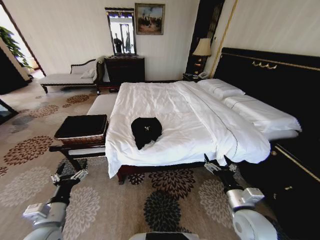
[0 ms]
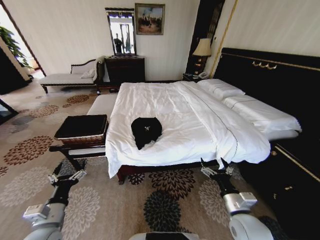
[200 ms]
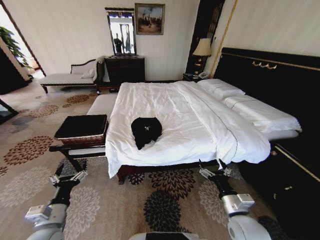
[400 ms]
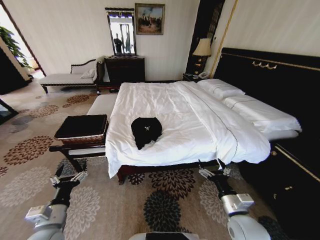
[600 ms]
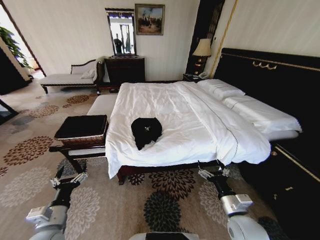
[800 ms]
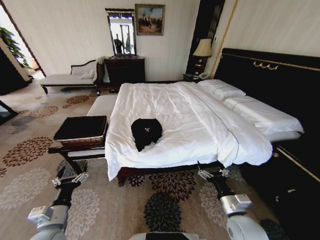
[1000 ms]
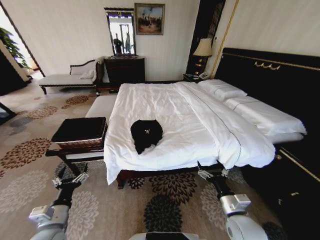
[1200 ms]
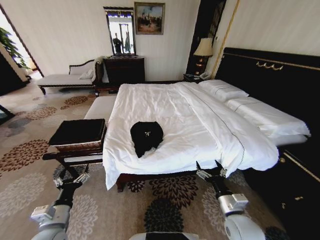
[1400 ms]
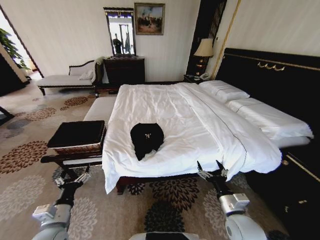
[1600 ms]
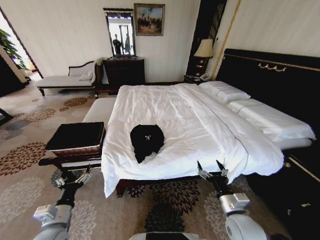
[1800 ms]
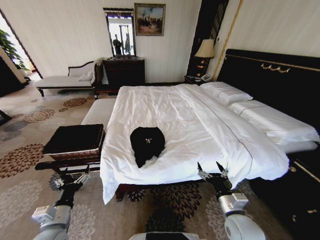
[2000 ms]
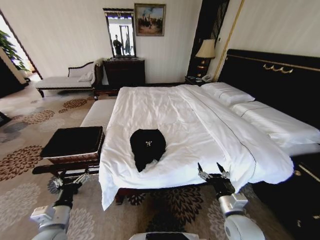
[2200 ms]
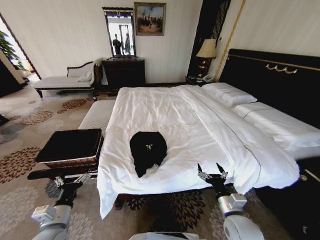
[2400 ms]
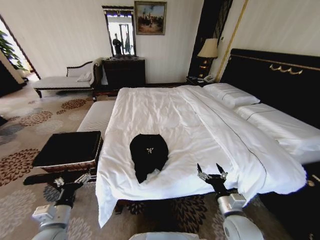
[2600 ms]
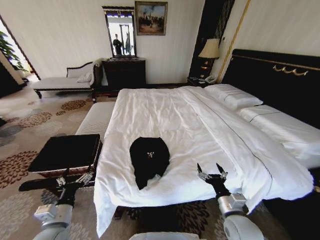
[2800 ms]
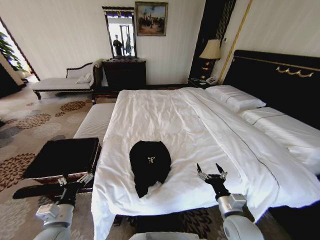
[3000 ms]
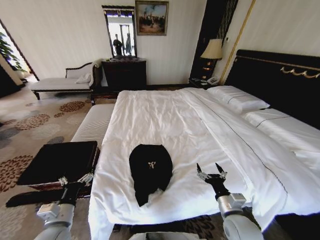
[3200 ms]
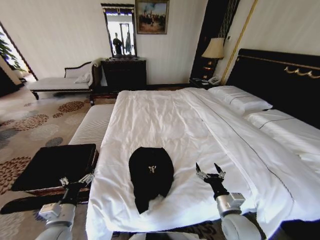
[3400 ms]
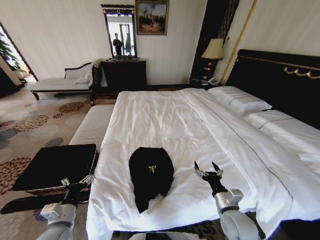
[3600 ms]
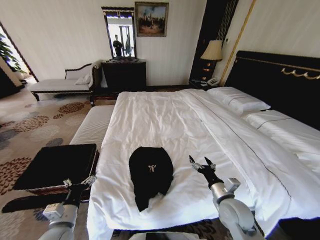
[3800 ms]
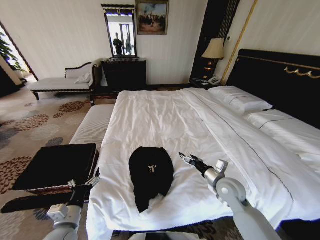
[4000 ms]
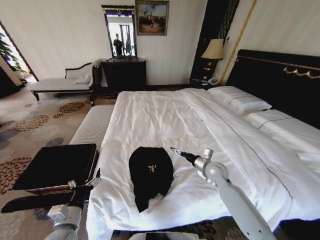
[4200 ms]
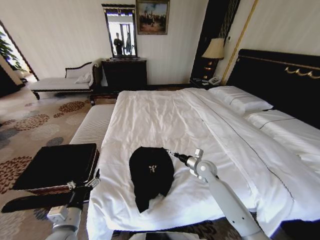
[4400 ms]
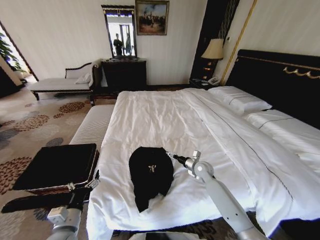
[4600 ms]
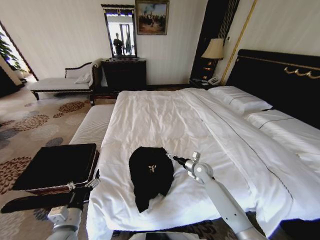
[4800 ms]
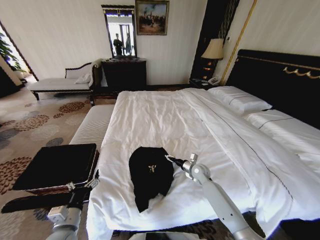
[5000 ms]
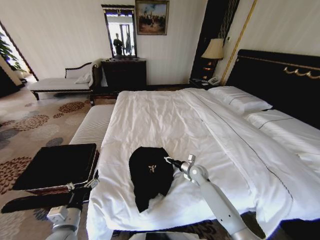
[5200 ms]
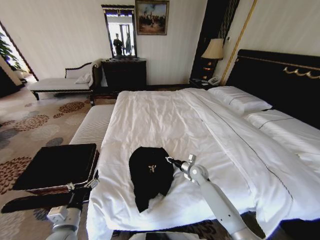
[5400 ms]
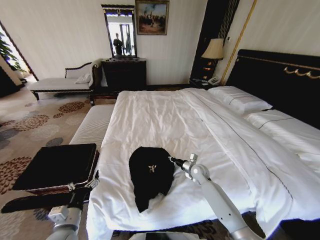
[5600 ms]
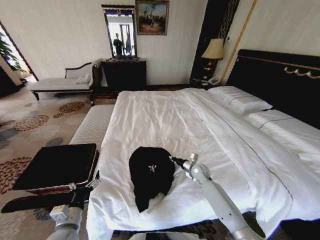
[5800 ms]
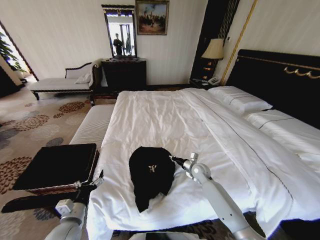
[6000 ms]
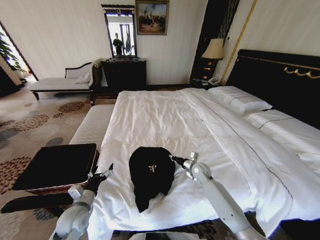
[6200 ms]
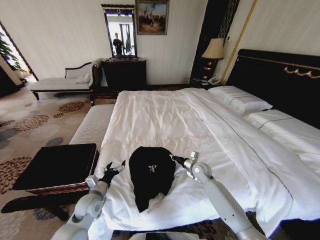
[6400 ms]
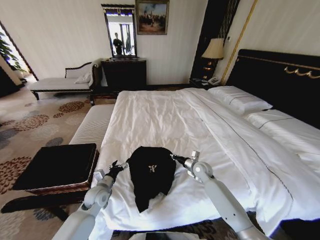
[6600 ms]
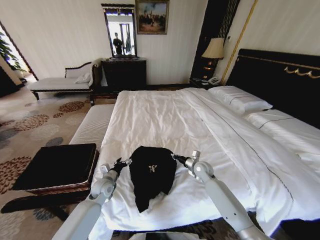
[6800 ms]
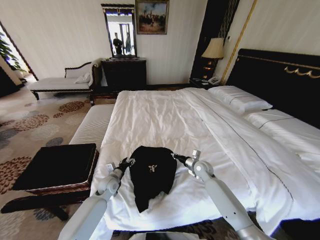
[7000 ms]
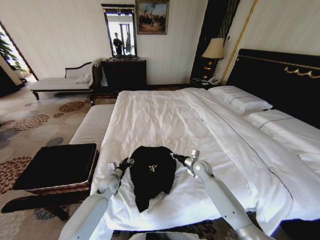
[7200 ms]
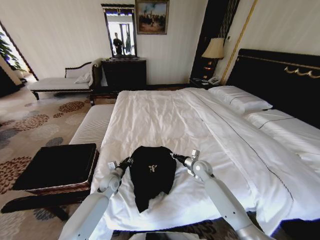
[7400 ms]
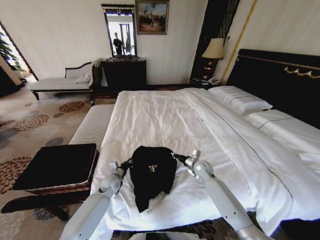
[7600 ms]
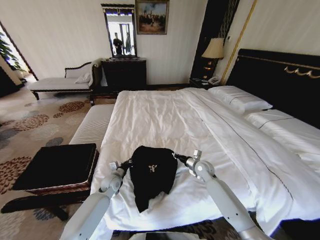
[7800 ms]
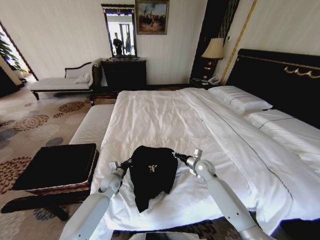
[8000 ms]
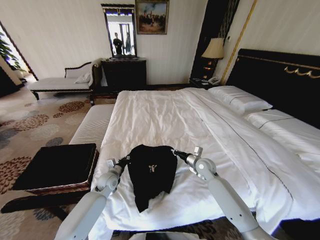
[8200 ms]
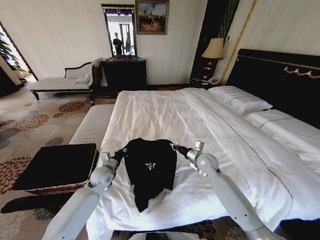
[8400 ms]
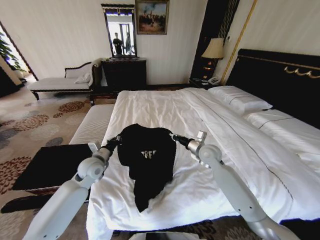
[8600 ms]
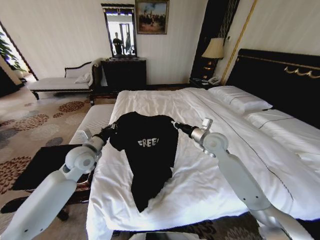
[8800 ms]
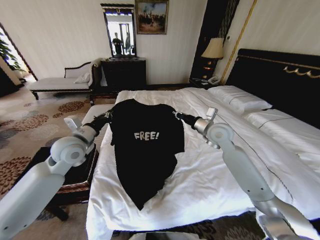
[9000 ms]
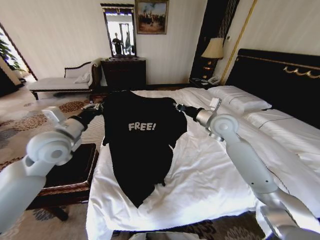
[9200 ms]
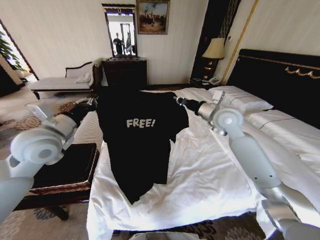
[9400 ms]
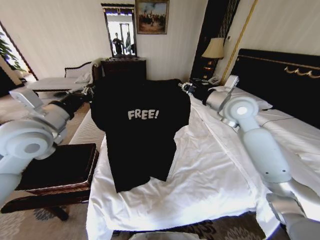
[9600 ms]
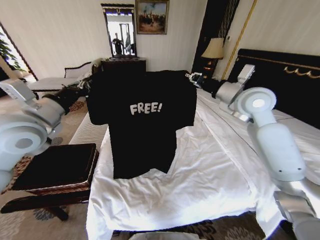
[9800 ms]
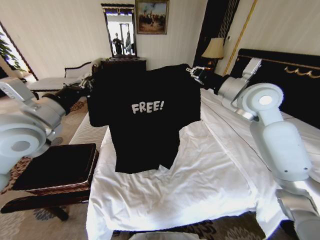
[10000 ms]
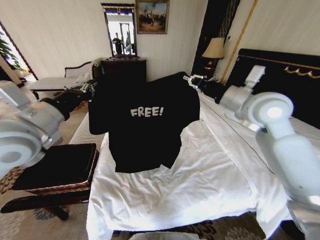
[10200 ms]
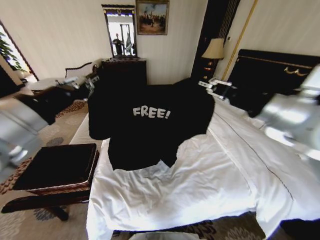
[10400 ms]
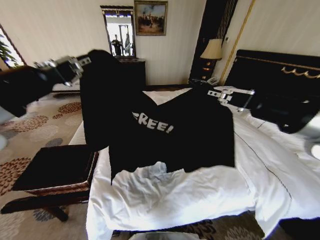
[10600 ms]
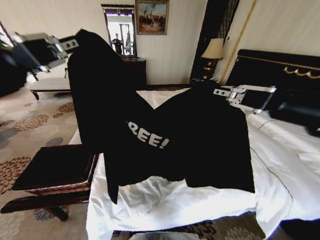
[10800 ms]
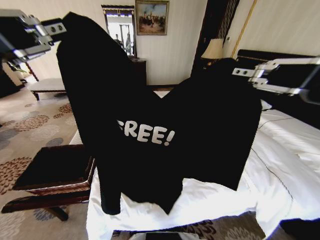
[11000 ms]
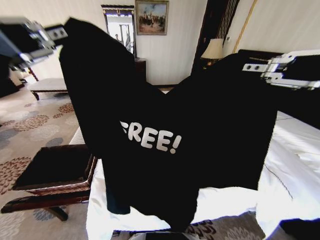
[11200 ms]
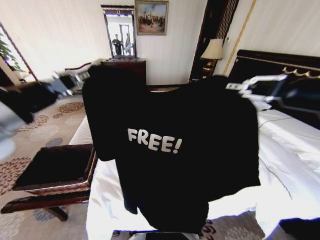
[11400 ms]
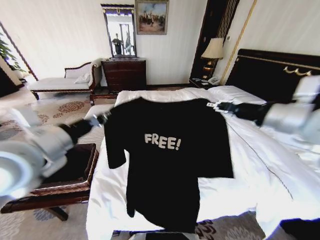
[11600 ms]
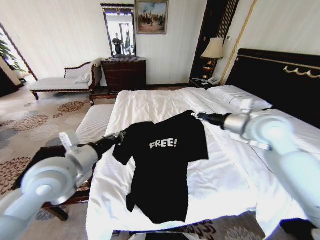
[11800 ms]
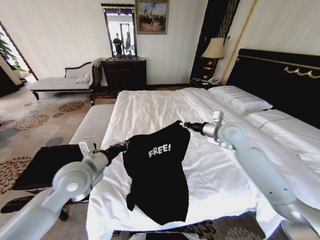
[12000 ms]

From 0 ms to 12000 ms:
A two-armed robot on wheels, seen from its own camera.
Task of the whole recording: Fold the clothes on the bed and place them into the basket.
From 3000 ms to 4400 ms: The right gripper is displaced forward by about 25 cm.
From 4400 ms to 6000 ms: The right gripper is displaced downward by some 5 cm, and closes up.
From 6000 ms to 7600 ms: The left gripper heads forward, covering some 20 cm, and closes its fingers.
From 7600 ms to 9000 ms: The grippers both shift upward by about 25 cm.
From 9000 ms to 10400 ms: The left gripper heads upward and backward, covering roughly 20 cm. The right gripper shifts some 25 cm backward and upward.
From 10400 ms to 12000 ms: The right gripper shifts some 25 cm downward and forward. Meanwhile the left gripper moves downward, some 20 cm.

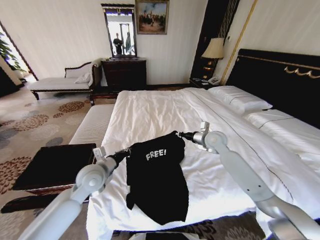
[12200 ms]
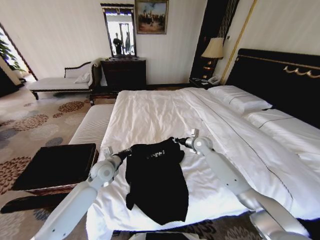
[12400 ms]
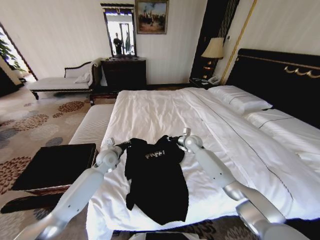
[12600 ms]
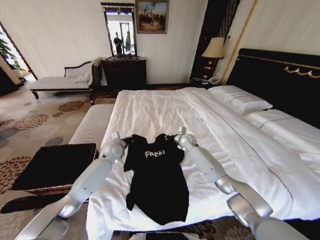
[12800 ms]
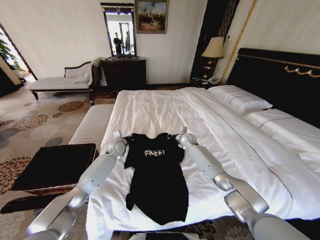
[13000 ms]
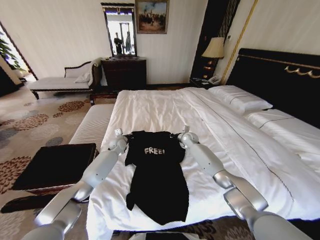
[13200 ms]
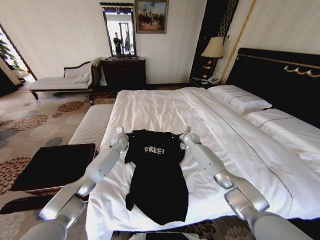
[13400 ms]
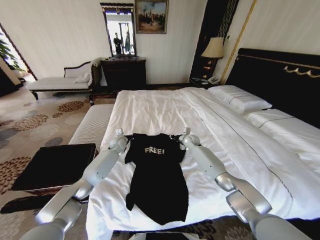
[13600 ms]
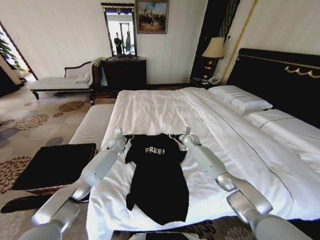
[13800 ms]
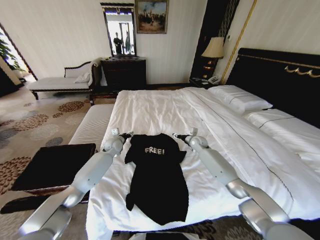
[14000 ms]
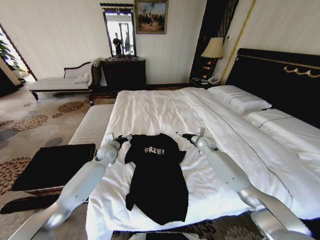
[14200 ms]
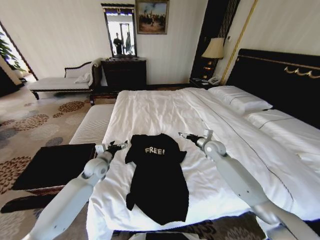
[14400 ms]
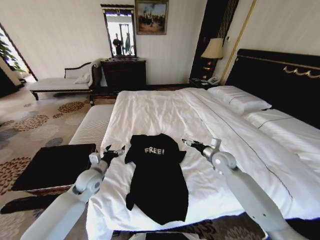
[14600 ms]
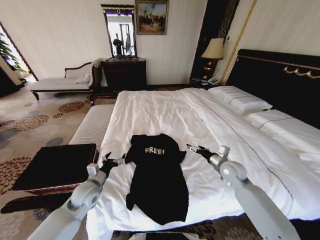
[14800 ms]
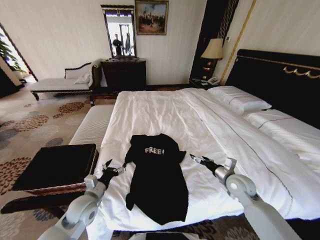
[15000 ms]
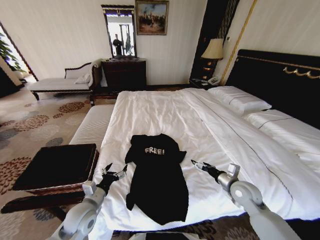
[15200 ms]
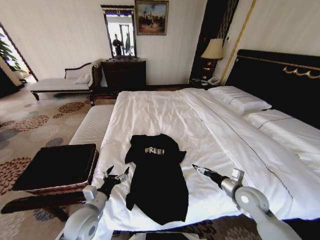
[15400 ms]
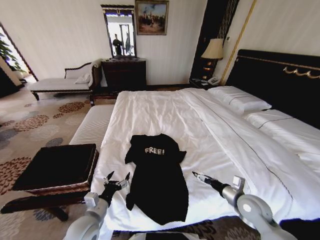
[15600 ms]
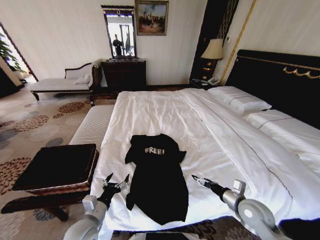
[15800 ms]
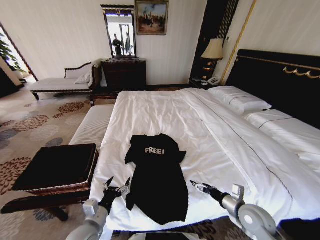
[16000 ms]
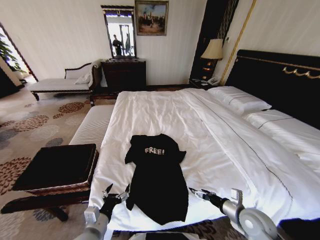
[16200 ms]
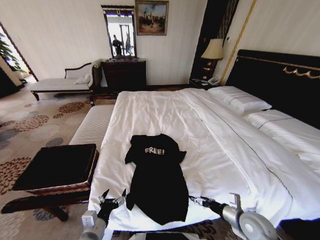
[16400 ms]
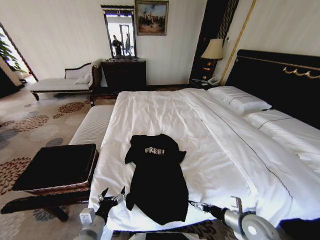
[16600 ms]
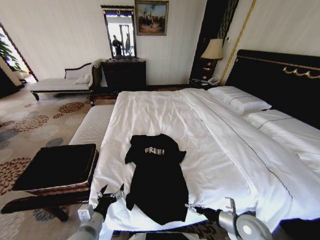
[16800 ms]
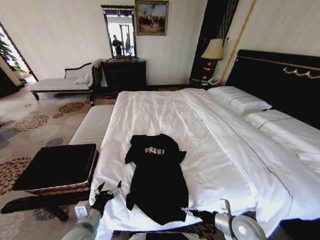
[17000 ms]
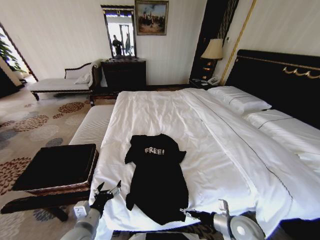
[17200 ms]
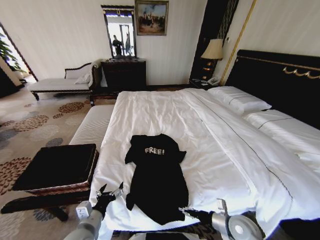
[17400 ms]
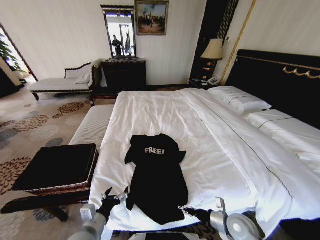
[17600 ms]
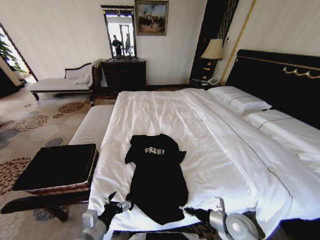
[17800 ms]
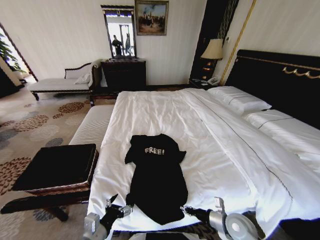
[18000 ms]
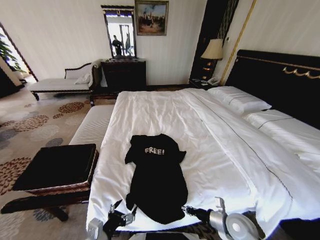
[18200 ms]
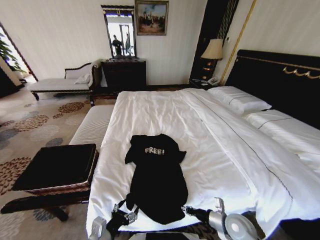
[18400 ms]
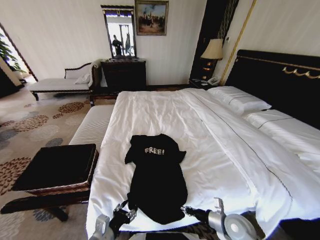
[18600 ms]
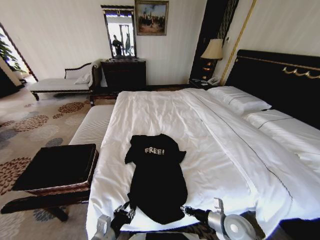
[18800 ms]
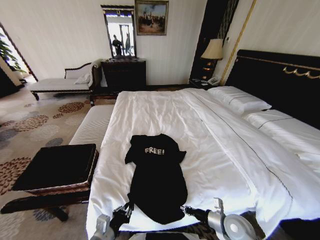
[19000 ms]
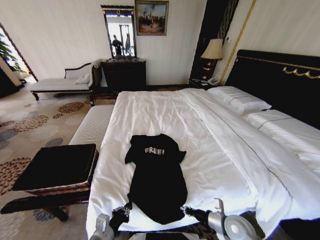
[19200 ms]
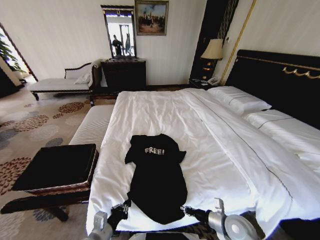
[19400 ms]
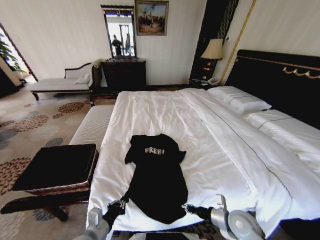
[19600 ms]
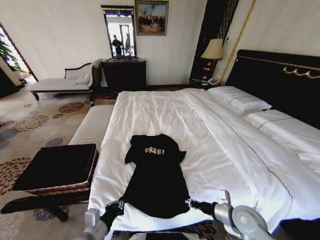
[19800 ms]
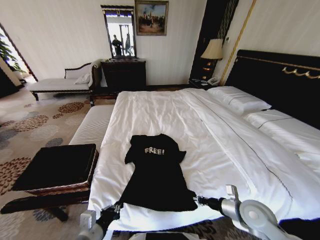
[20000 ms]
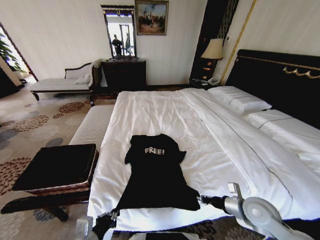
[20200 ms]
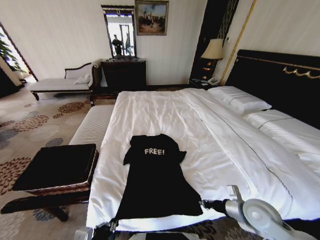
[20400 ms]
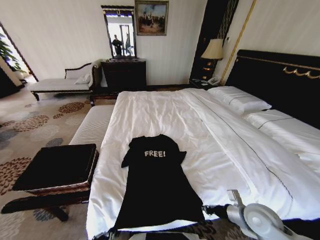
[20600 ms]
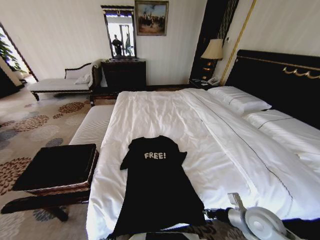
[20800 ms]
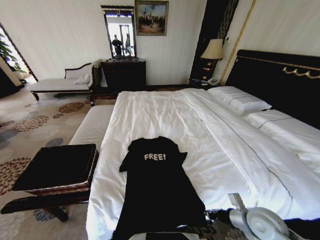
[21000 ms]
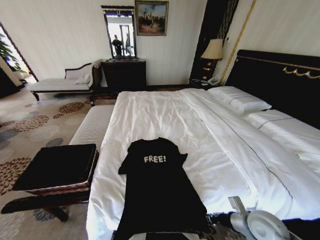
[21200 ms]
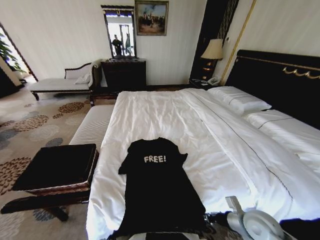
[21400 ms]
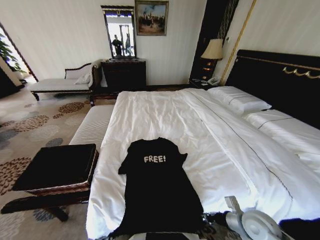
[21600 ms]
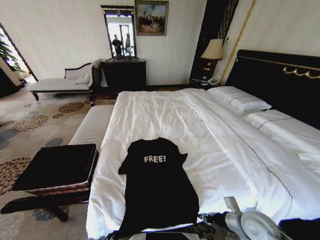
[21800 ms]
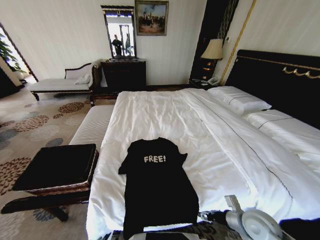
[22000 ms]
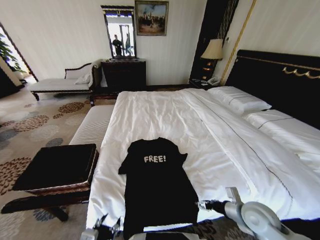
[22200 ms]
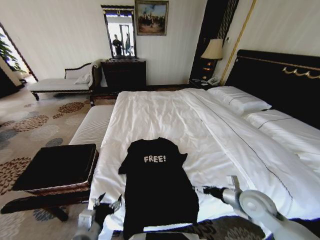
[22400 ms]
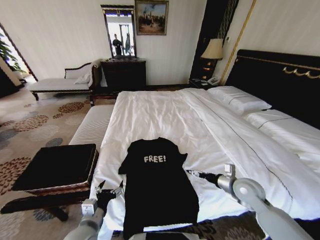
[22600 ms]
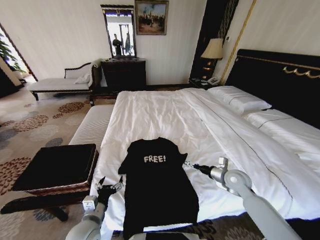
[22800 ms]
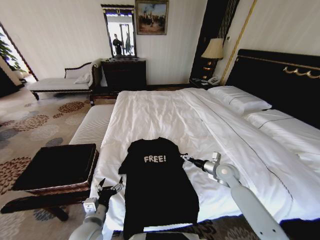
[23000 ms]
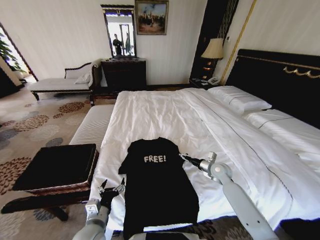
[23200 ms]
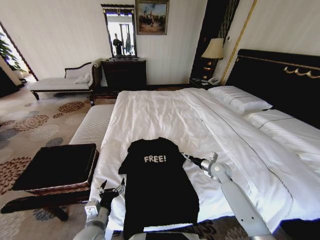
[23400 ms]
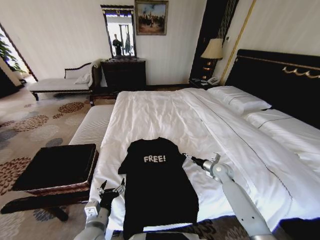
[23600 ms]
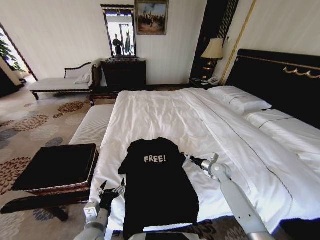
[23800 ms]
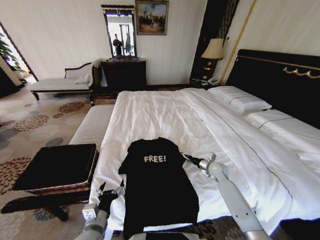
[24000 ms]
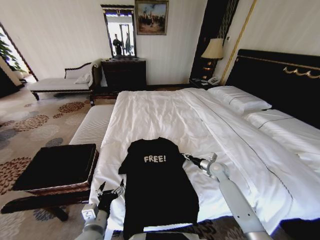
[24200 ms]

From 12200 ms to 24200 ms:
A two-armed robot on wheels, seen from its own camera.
Task of the whole recording: Fold the clothes on the bed and place them into the basket.
From 12200 ms to 13800 ms: The right gripper moves downward and forward, approximately 15 cm. Meanwhile the left gripper moves forward, some 25 cm.
From 13800 ms to 15200 ms: The grippers both shift backward by about 35 cm. The left gripper opens up. Meanwhile the right gripper opens.
From 15200 ms to 16600 ms: Both grippers move backward, about 10 cm.
From 16600 ms to 18200 ms: The right gripper shifts by roughly 5 cm, and closes.
From 18200 ms to 19800 ms: The right gripper shifts approximately 5 cm upward. The left gripper closes its fingers.
From 19800 ms to 21200 ms: The left gripper heads backward, covering roughly 10 cm.
From 21200 ms to 22600 ms: The grippers both shift forward by some 10 cm. The right gripper opens. The left gripper opens.
From 22600 ms to 24200 ms: The right gripper heads forward and downward, covering roughly 15 cm, and closes.
